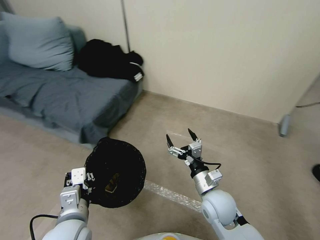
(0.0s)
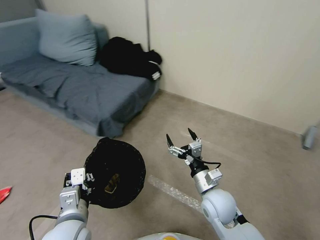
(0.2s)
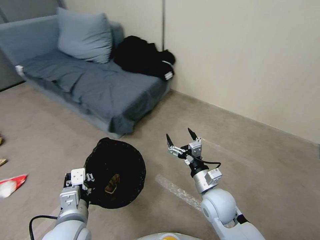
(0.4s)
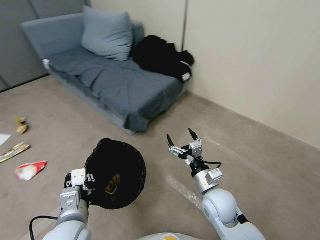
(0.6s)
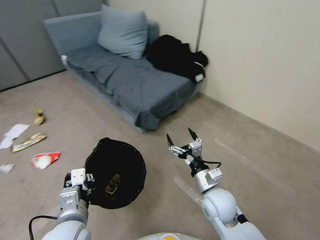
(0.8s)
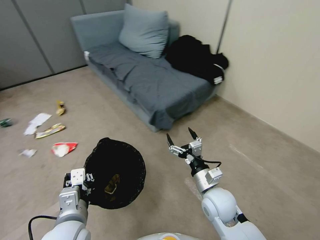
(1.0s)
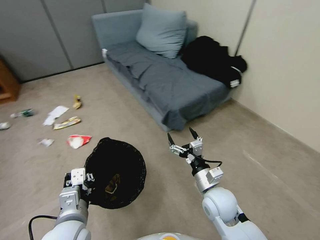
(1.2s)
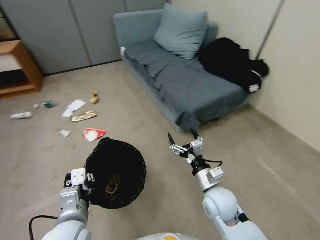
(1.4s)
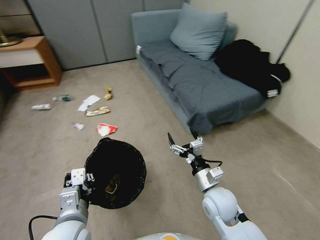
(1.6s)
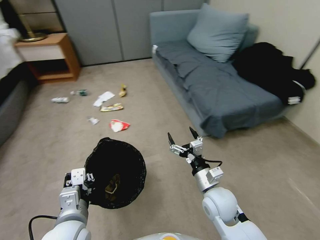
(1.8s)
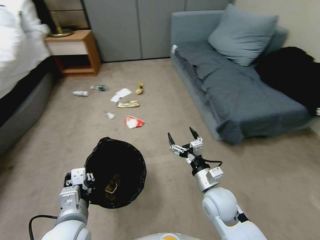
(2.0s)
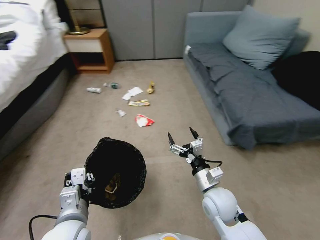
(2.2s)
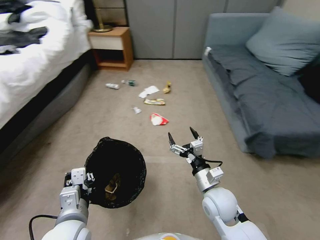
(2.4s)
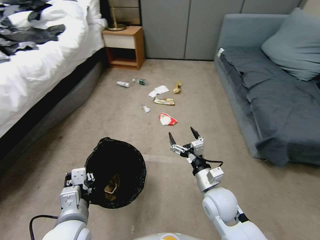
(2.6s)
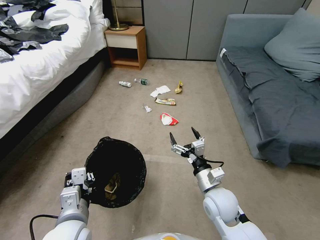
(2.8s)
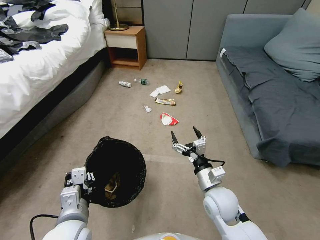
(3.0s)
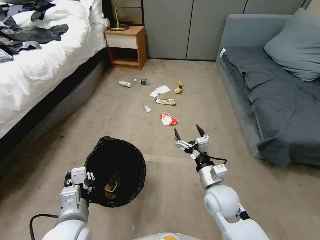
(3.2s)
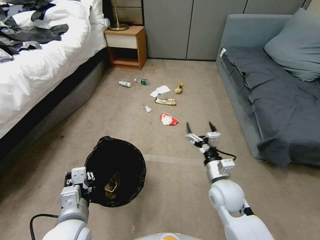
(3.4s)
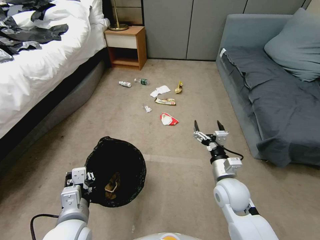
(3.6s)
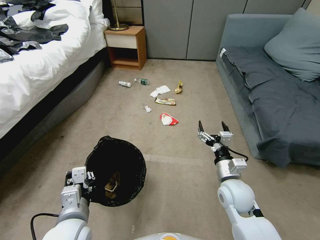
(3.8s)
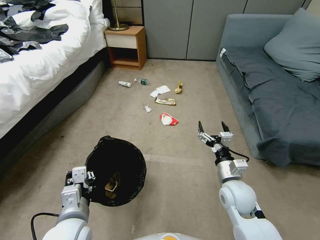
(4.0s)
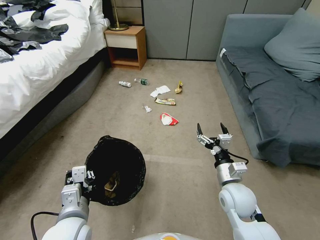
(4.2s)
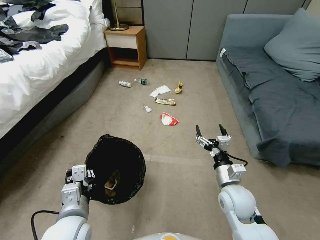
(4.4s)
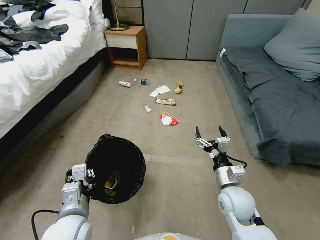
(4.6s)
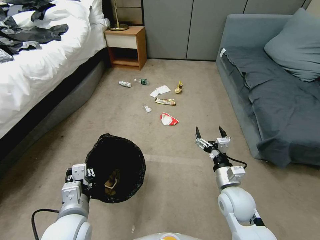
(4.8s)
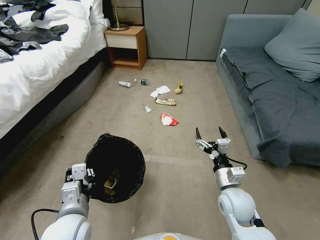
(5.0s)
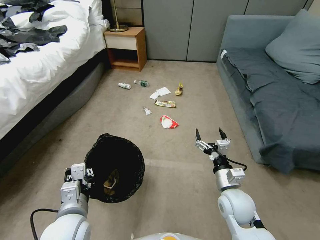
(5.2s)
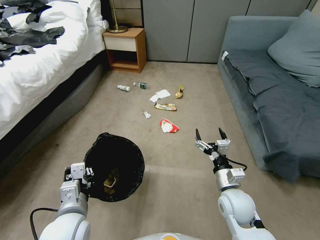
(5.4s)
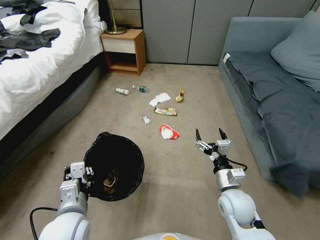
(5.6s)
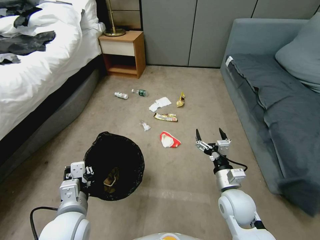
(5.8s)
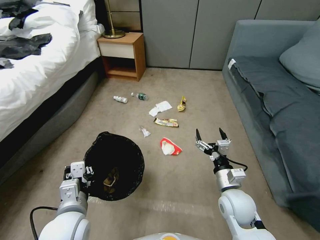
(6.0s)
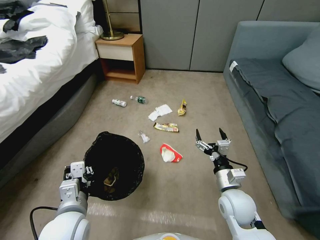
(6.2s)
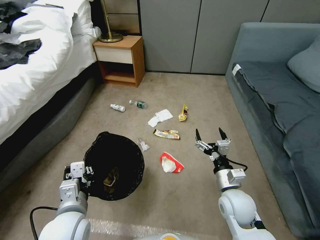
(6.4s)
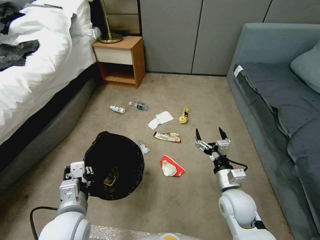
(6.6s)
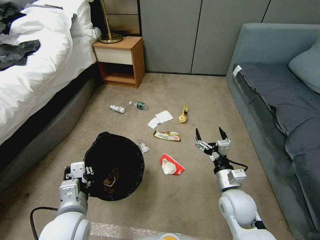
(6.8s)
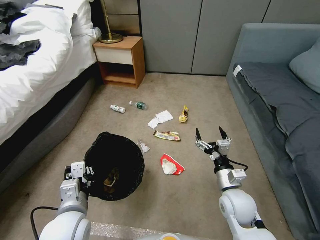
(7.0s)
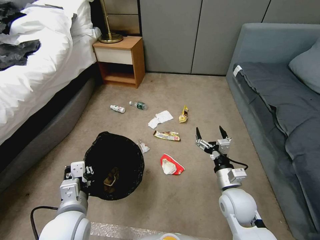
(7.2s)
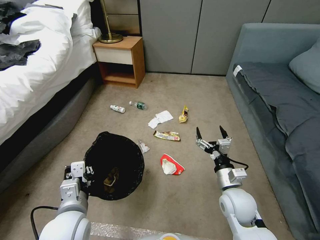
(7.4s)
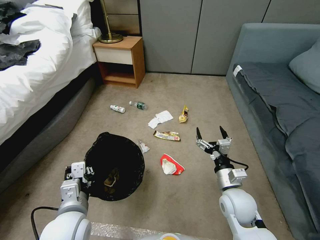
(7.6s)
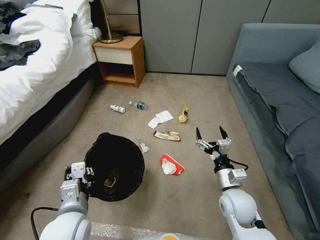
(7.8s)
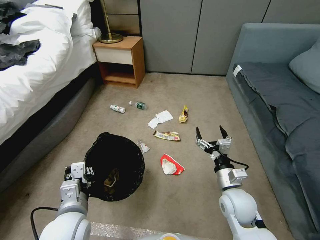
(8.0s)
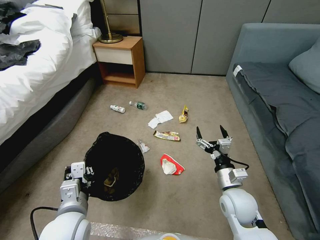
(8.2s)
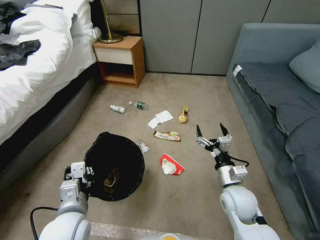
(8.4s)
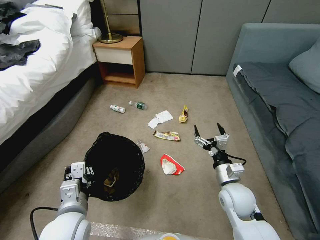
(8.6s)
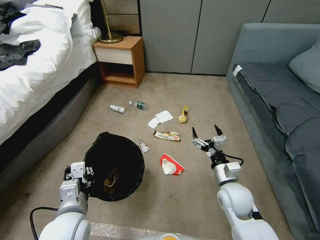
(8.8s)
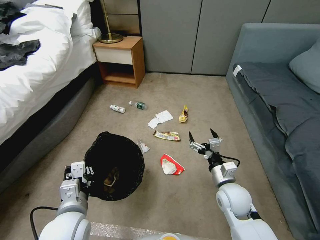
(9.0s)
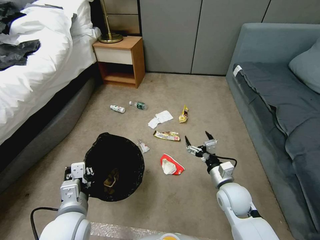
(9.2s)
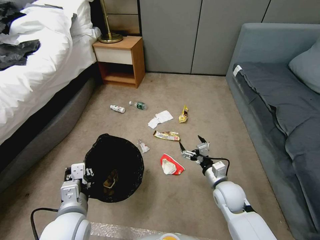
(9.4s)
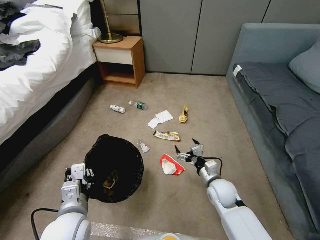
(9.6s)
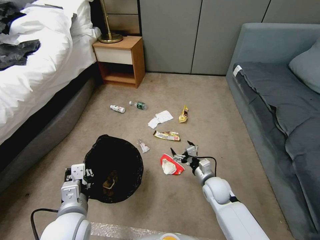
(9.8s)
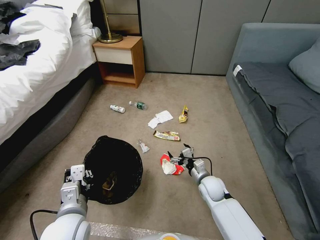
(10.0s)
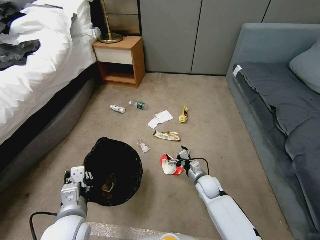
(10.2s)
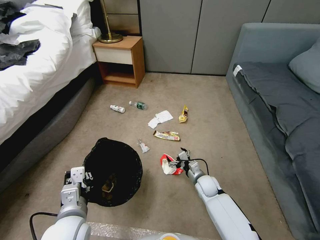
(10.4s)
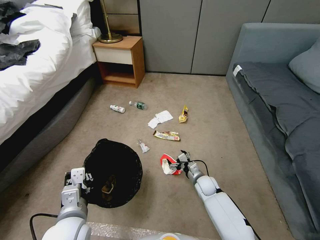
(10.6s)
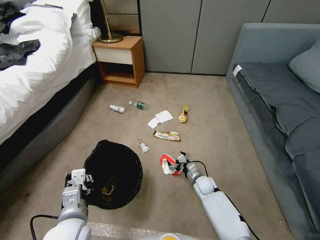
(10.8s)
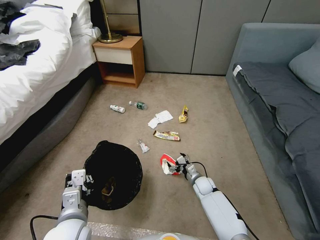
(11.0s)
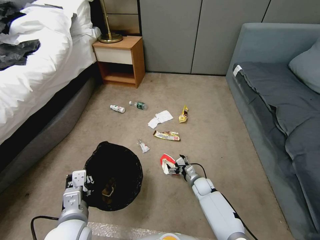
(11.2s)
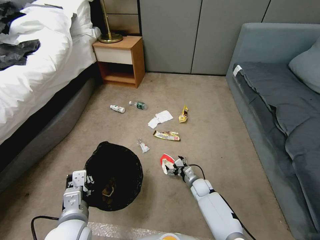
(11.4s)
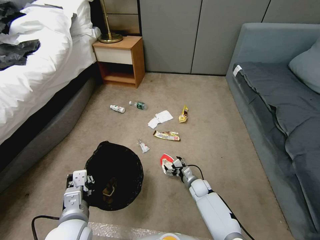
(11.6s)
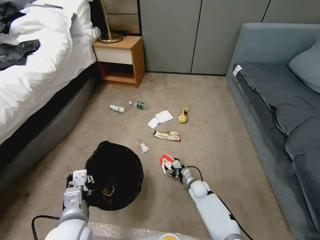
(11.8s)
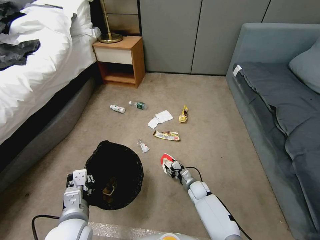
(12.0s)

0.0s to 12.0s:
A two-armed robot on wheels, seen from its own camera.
Task of the whole recording: Pick up the trash bin, then pick up the garbage from the floor and place it into the trash bin.
3.0s to 4.4s: There are only small adjustments of the grippers.
6.0s to 7.6s: The two grippers keep their place.
7.6s to 9.0s: The grippers move only a little.
9.0s to 10.4s: The right gripper travels downward and forward by some 15 cm.
10.4s to 12.0s: The right gripper travels downward by roughly 10 cm, and closes its fingers.

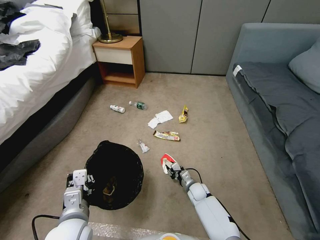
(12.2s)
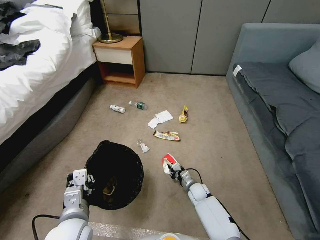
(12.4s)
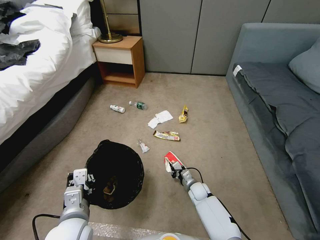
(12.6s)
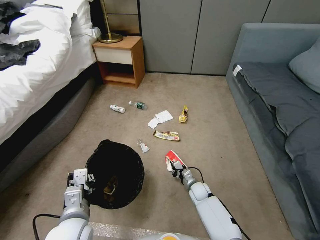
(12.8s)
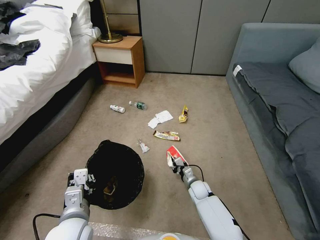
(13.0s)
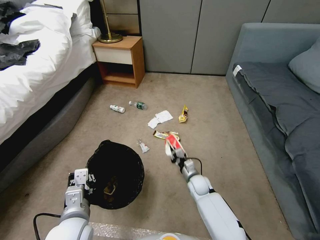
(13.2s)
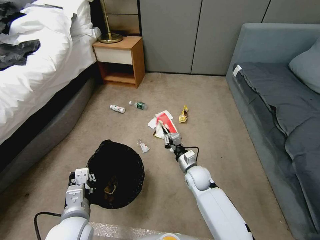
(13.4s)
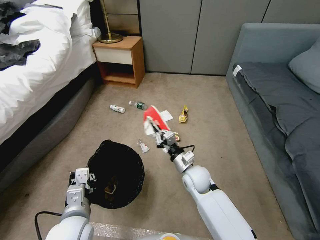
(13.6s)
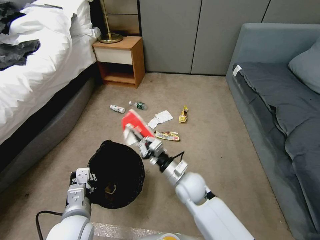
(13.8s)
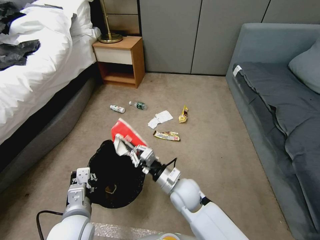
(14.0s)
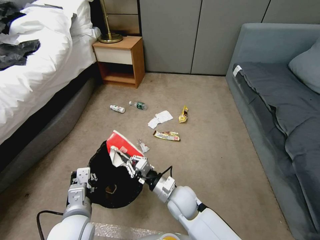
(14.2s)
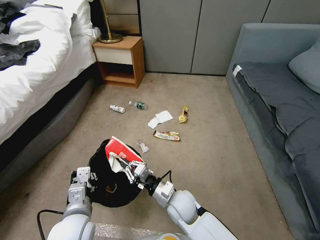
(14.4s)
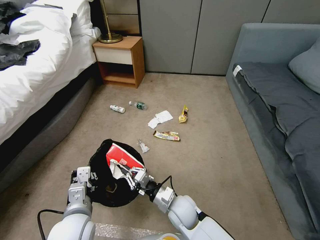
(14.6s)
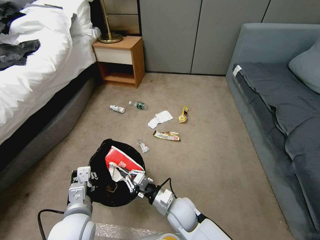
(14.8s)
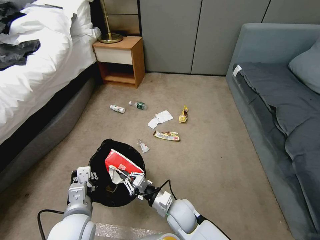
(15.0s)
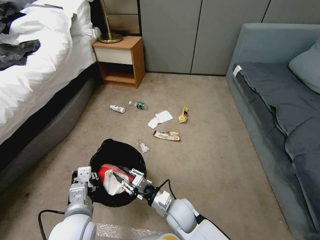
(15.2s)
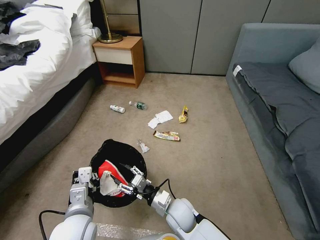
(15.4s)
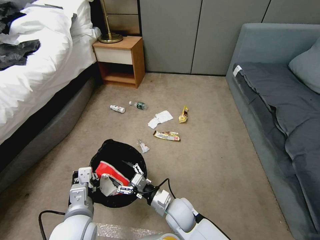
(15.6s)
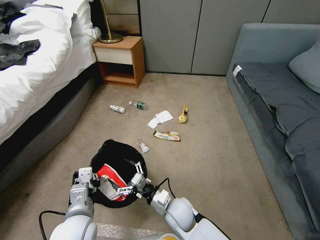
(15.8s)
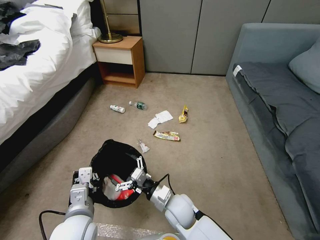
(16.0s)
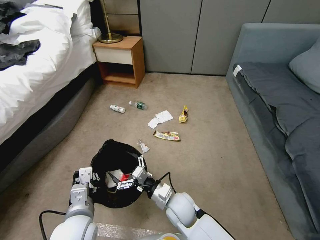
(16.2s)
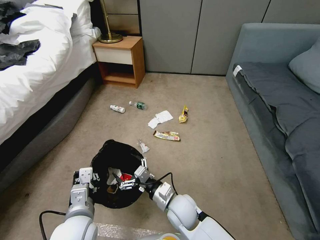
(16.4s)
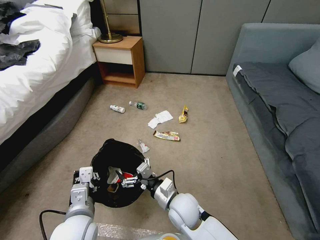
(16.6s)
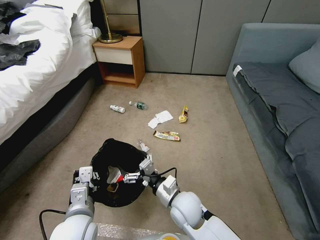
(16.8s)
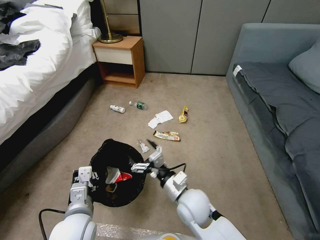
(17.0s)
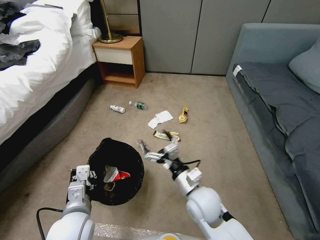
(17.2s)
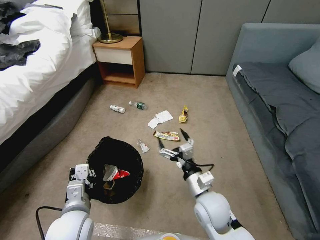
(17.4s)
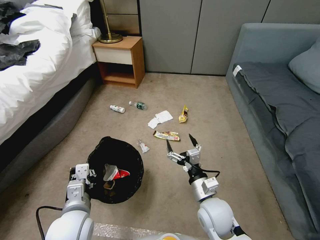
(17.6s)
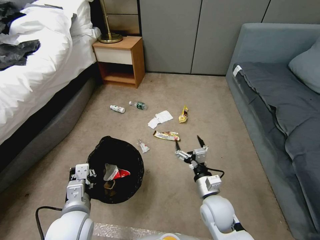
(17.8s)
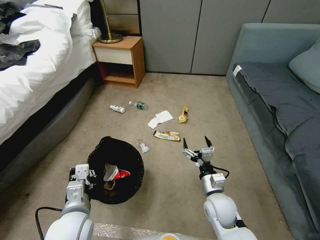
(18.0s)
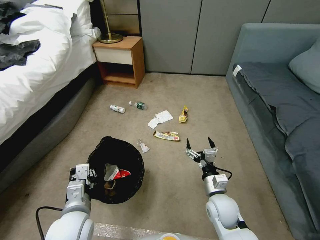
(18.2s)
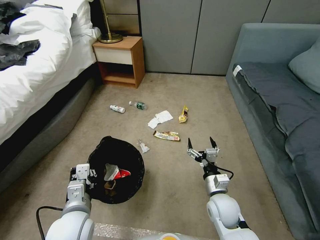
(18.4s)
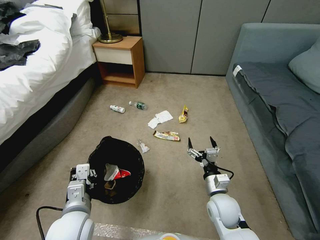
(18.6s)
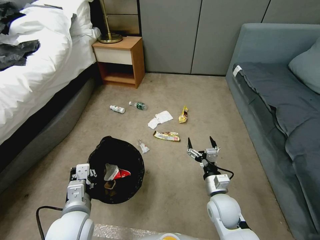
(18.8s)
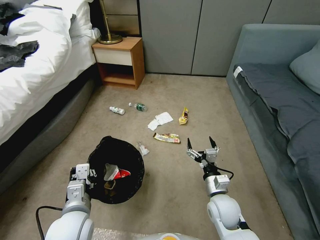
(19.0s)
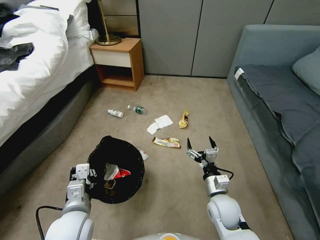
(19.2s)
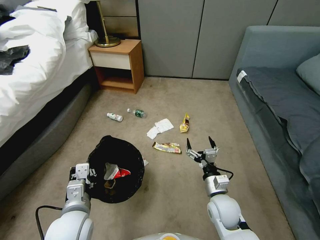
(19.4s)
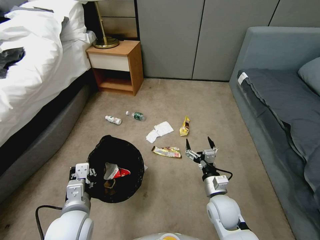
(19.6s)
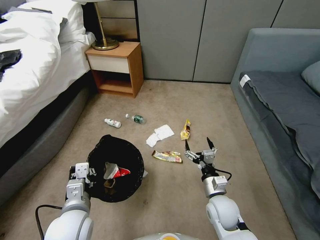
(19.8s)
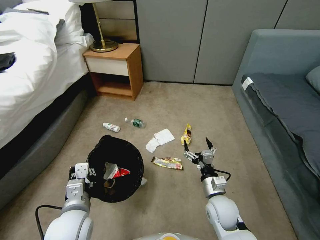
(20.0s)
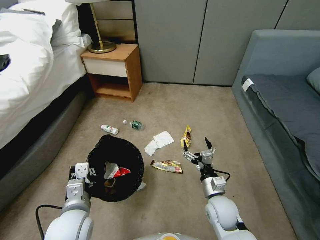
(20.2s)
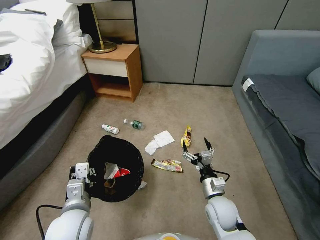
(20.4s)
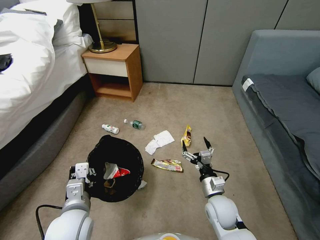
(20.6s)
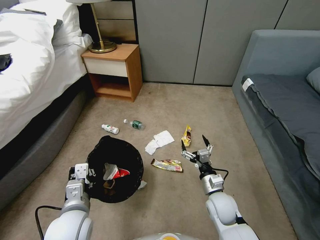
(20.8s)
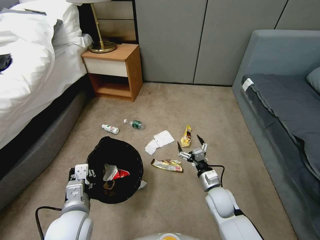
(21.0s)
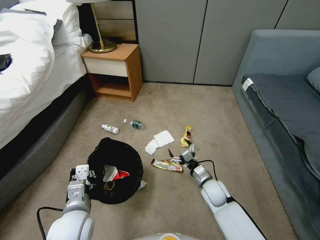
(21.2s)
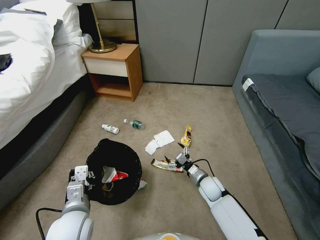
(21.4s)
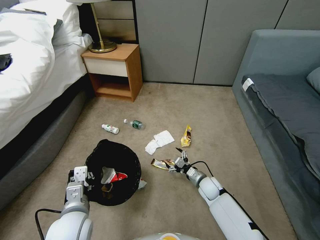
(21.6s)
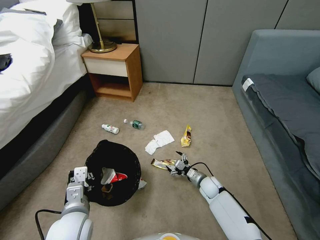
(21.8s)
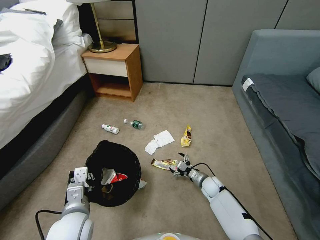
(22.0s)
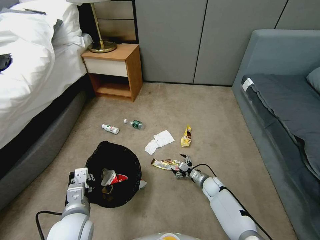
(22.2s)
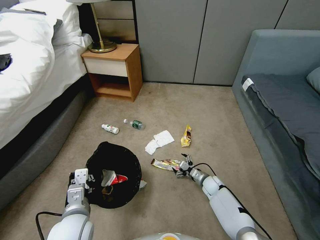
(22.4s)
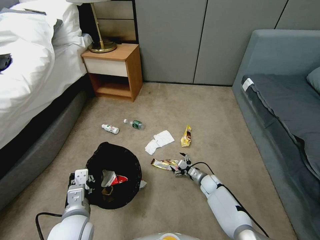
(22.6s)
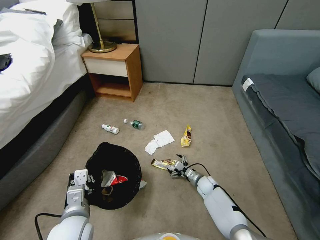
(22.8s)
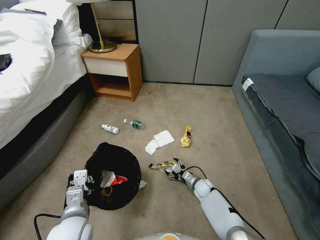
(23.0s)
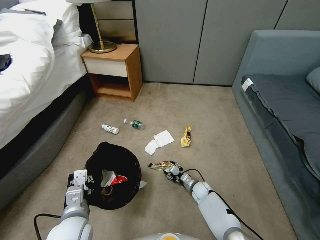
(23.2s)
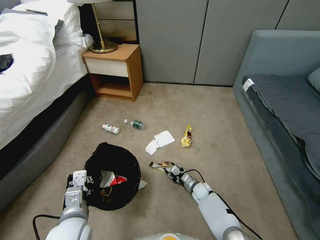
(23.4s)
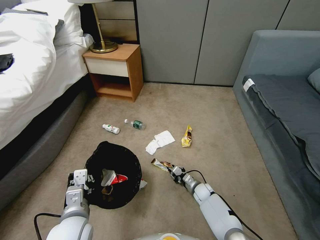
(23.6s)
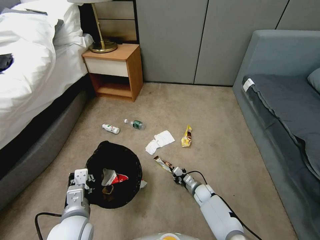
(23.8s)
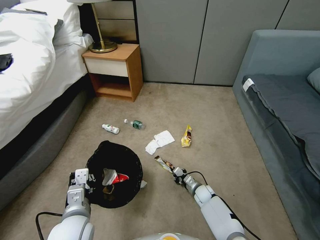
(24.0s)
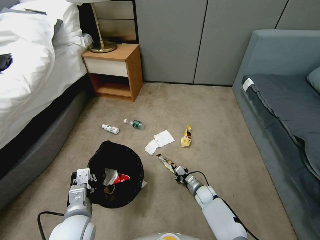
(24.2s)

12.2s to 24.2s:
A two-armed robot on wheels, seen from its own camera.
Task of the whole recording: Pick up the trash bin, then pick up the garbage from the floor and place it into the trash bin.
12.2s to 13.8s: The right gripper moves upward, some 25 cm.
13.8s to 15.2s: The right gripper shifts some 10 cm downward and backward.
15.2s to 16.6s: The right gripper opens its fingers.
16.6s to 18.2s: The right gripper travels to the right by some 15 cm.
19.8s to 21.2s: The right gripper shifts approximately 5 cm forward.
21.2s to 22.6s: The right gripper is displaced downward and forward by roughly 15 cm.
22.6s to 24.2s: The right gripper ends up about 5 cm from where it was, and closes.
